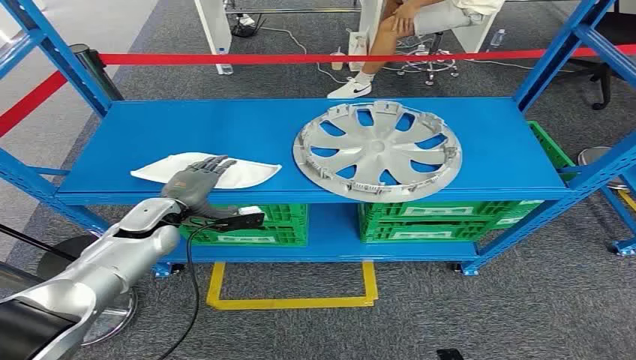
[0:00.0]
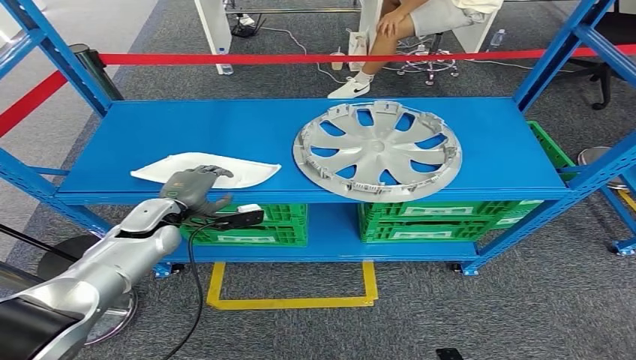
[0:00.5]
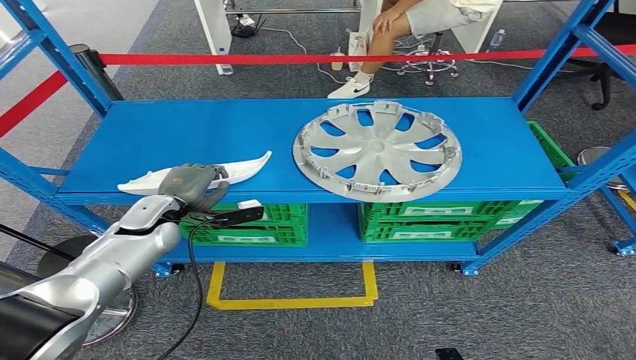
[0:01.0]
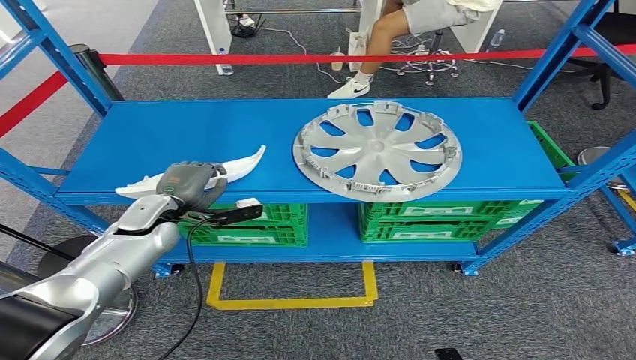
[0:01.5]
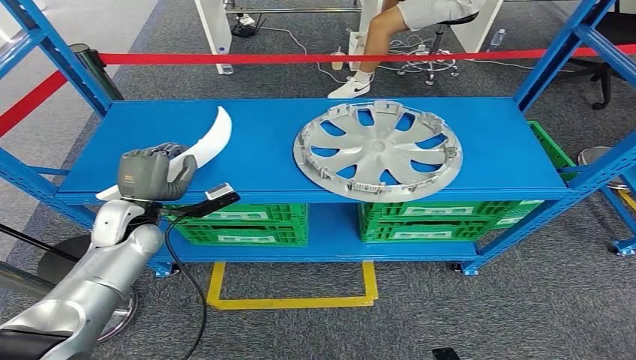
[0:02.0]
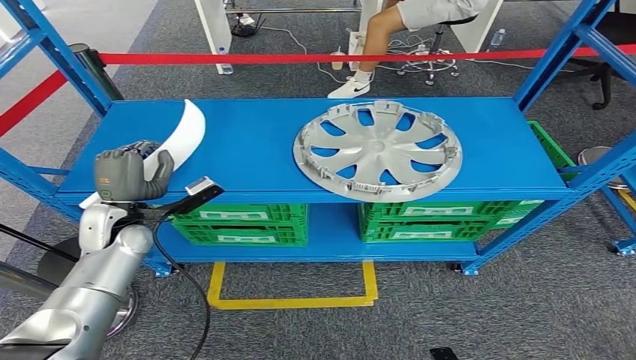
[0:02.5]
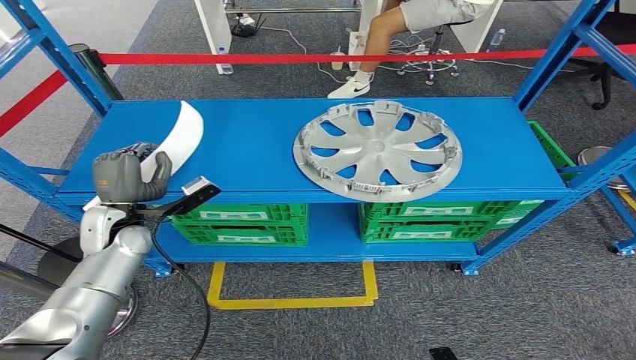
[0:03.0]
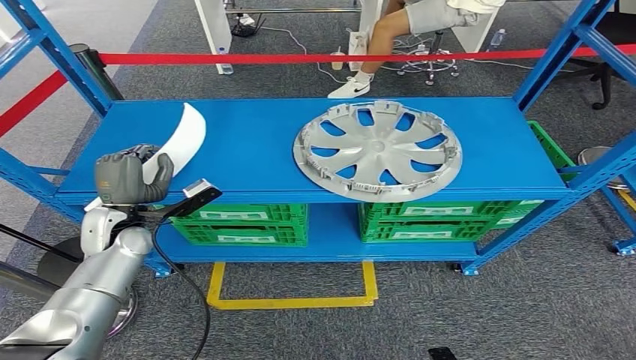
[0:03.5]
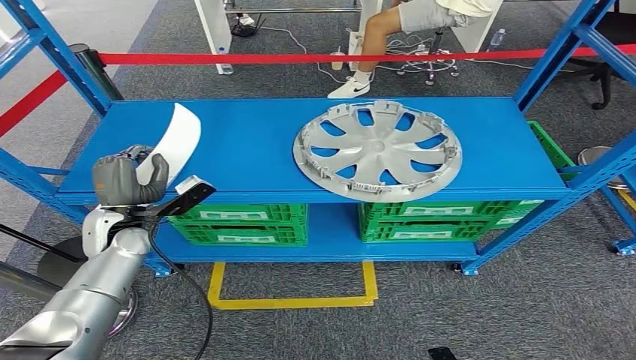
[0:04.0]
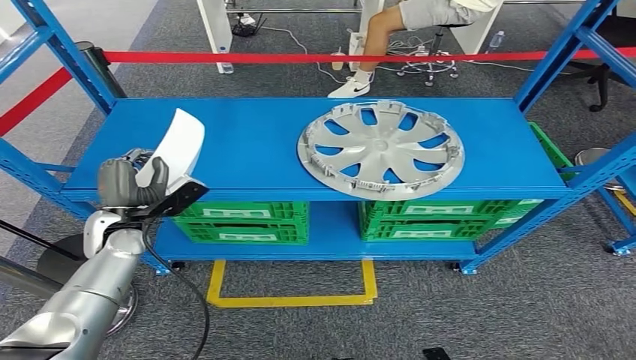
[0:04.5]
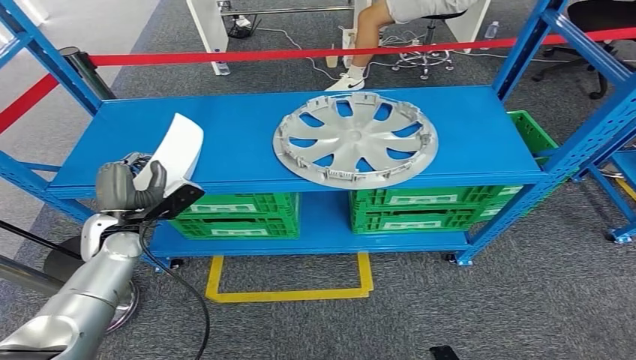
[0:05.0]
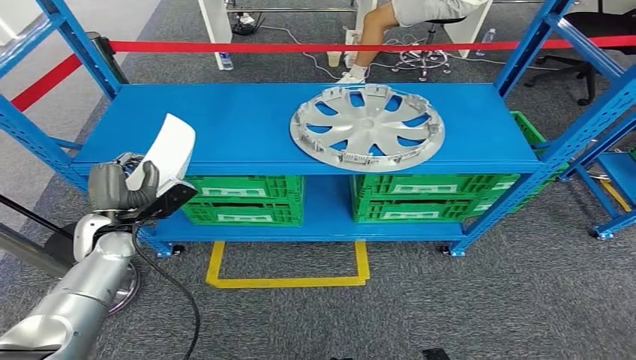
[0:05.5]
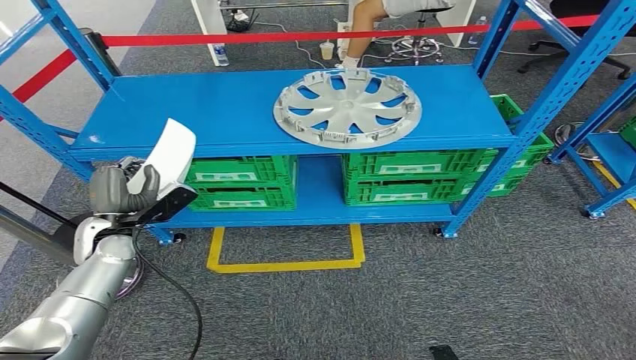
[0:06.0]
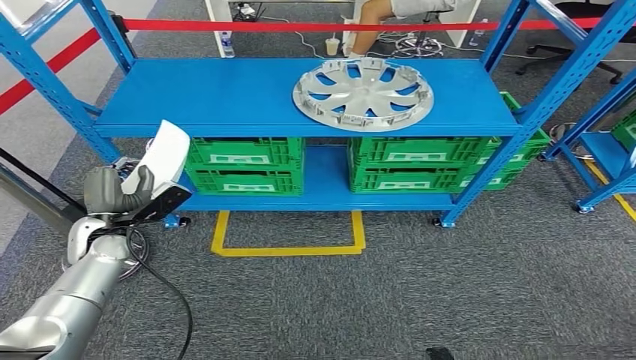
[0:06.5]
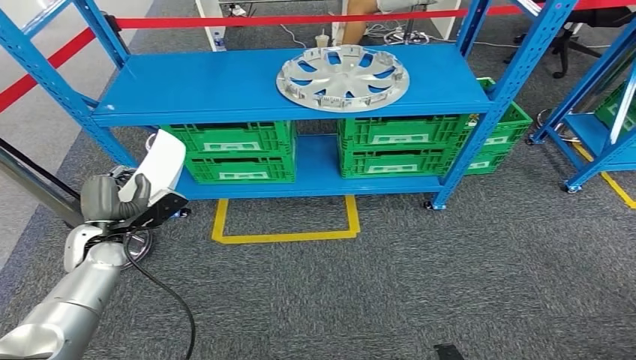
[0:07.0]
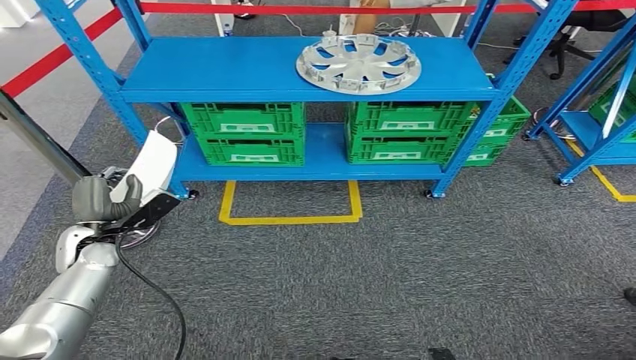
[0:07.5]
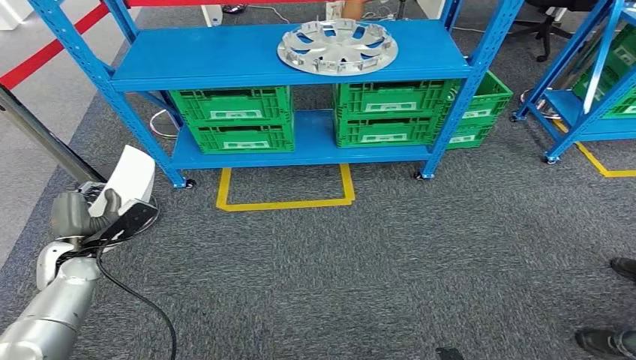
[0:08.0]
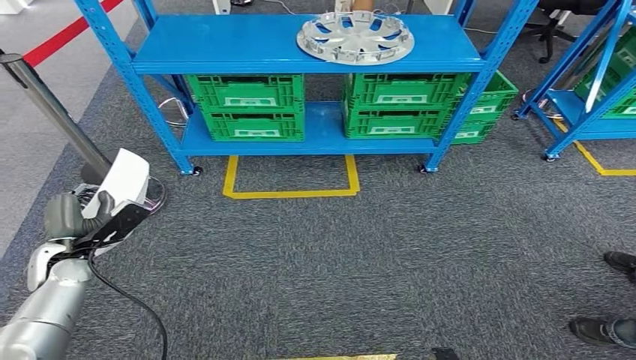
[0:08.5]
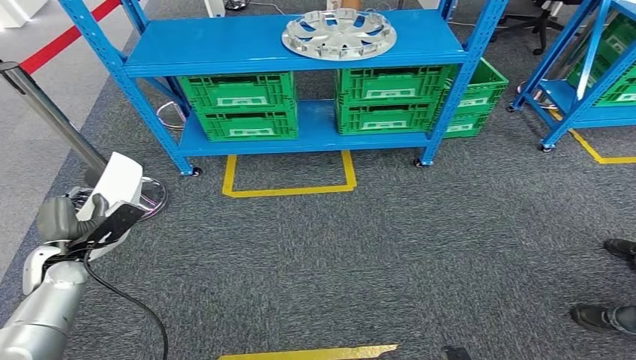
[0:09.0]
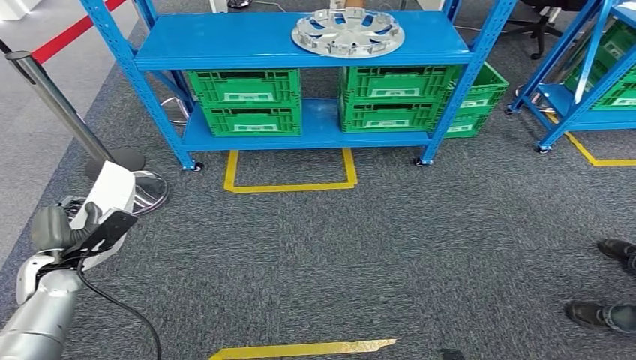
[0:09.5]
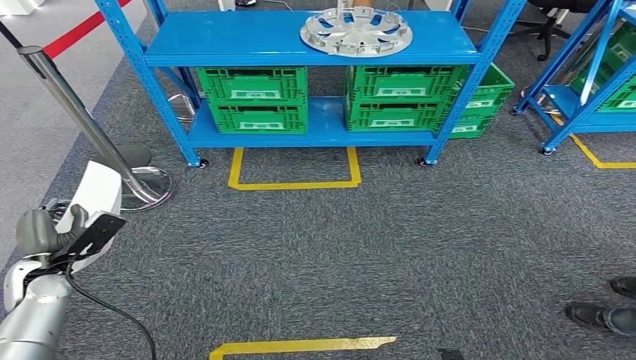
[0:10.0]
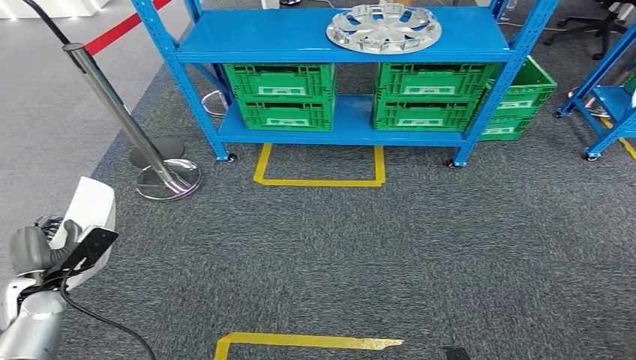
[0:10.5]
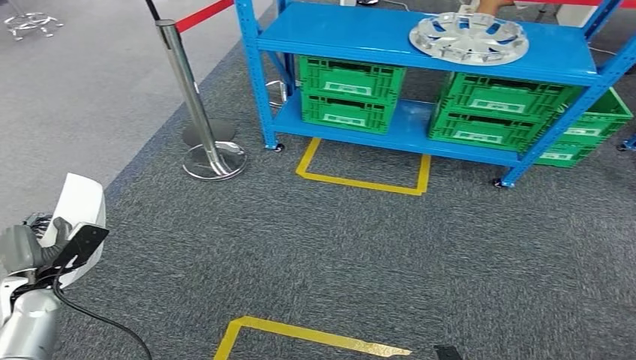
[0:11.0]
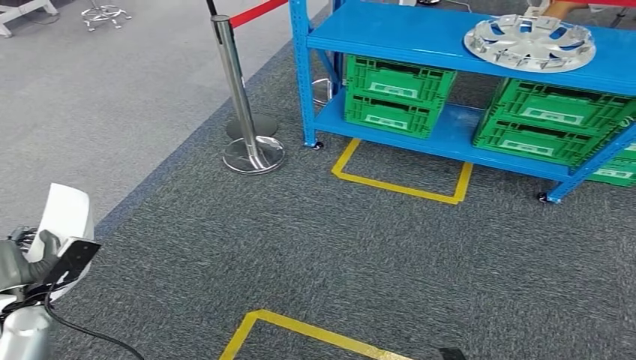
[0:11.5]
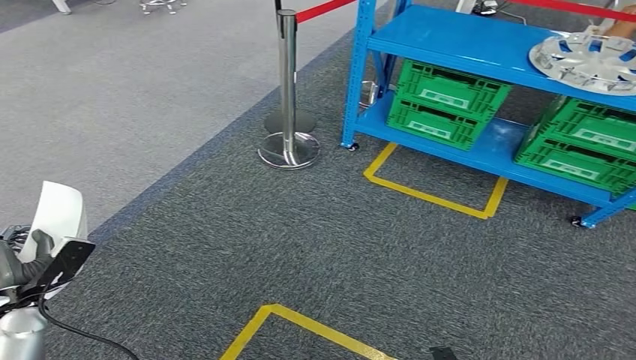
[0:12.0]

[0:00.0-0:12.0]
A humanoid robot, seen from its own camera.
Step, 0:00.0 to 0:07.0: Pick up the small parts from the shelf.
0:02.0 to 0:04.0: The hands make only small movements.

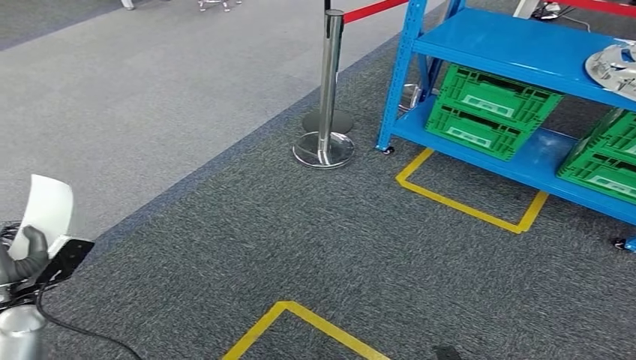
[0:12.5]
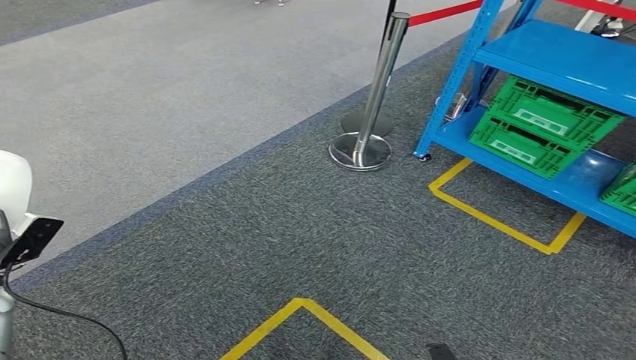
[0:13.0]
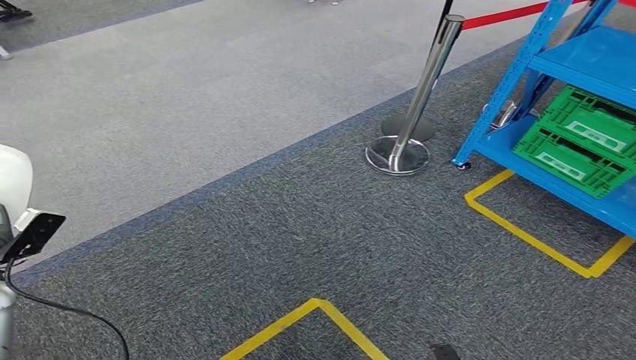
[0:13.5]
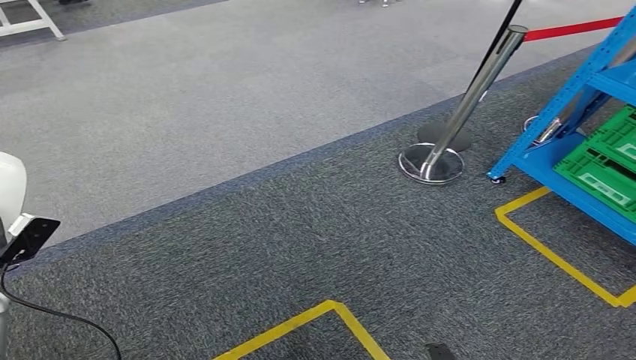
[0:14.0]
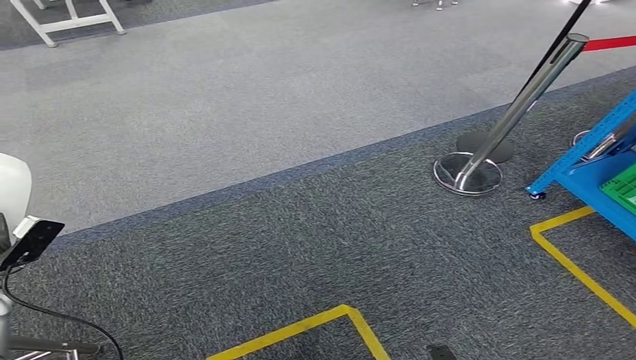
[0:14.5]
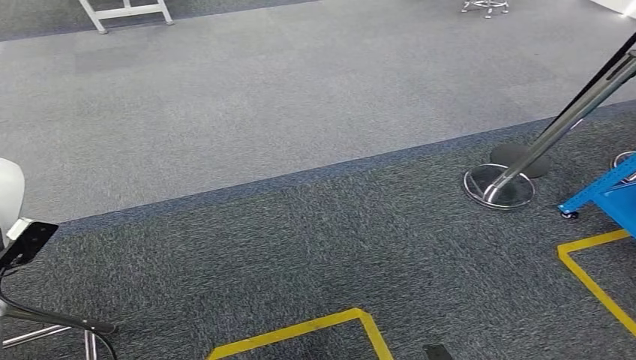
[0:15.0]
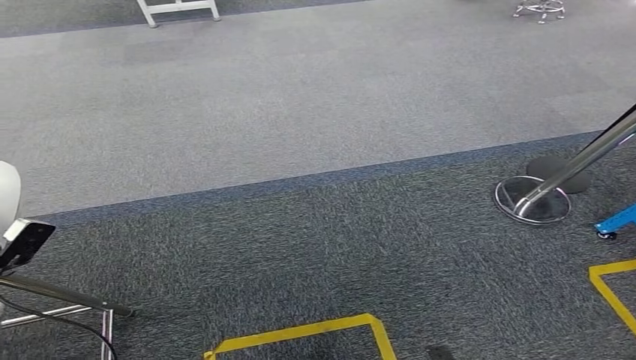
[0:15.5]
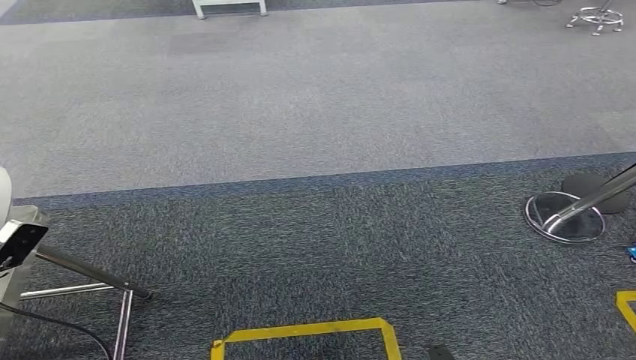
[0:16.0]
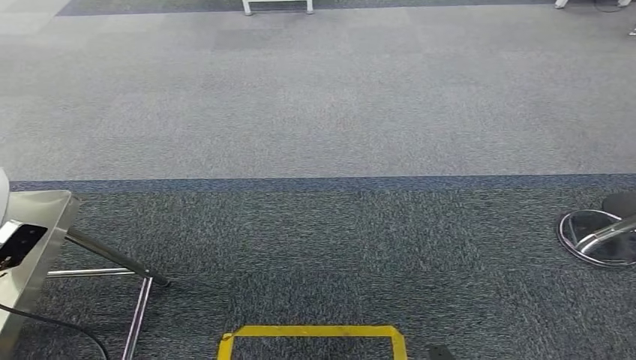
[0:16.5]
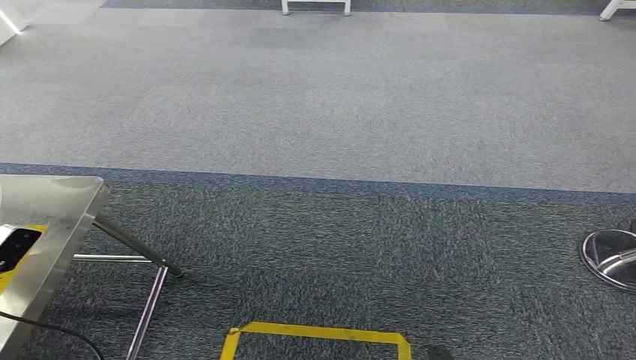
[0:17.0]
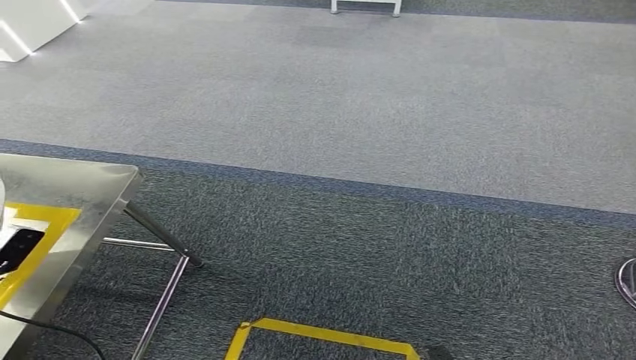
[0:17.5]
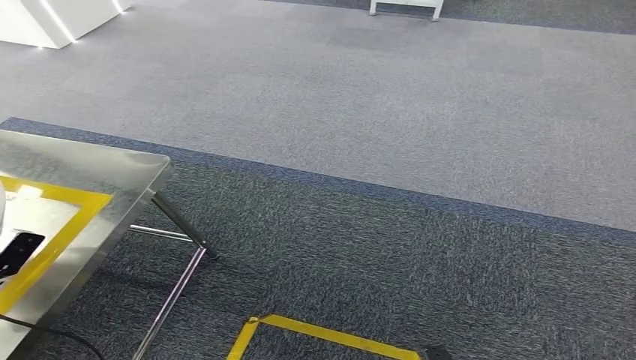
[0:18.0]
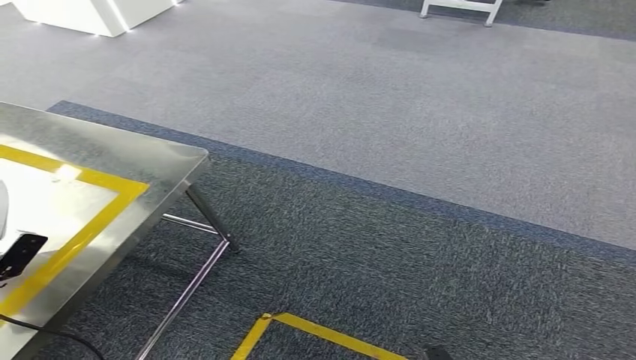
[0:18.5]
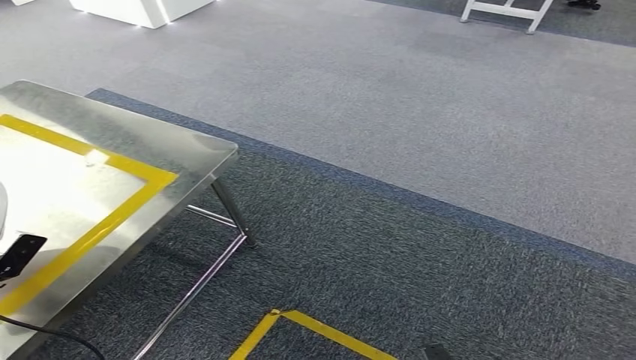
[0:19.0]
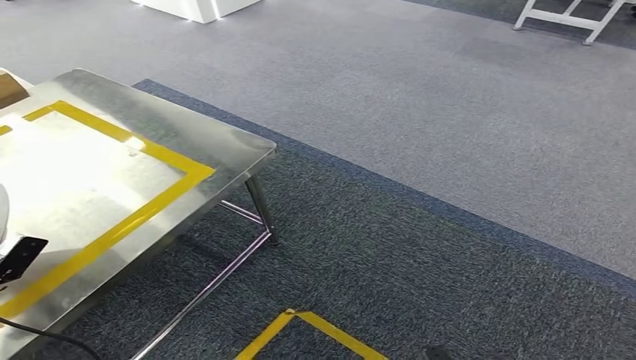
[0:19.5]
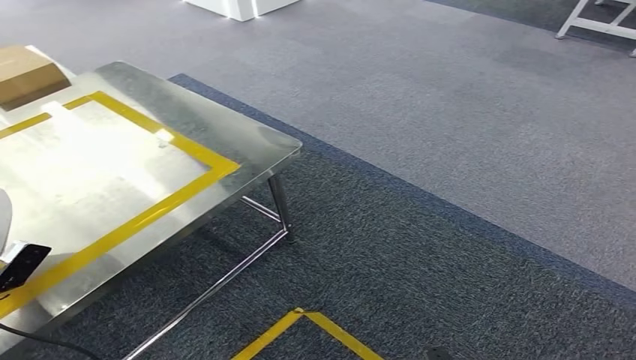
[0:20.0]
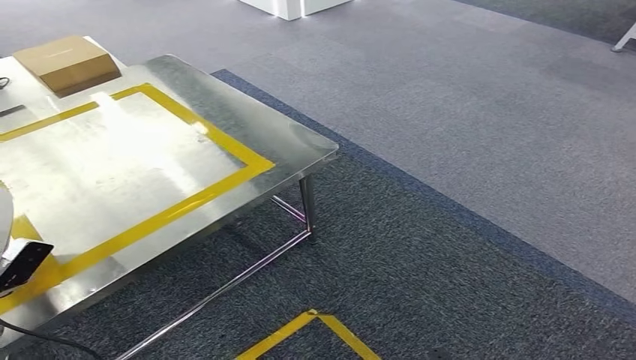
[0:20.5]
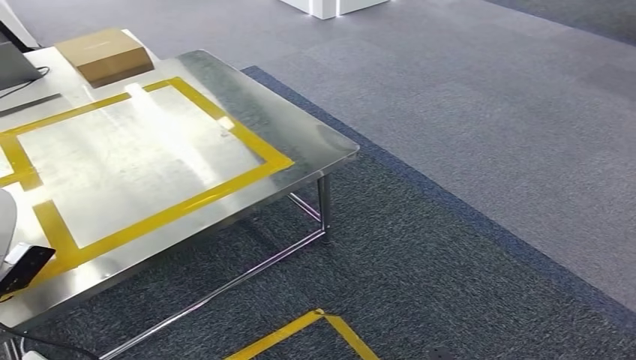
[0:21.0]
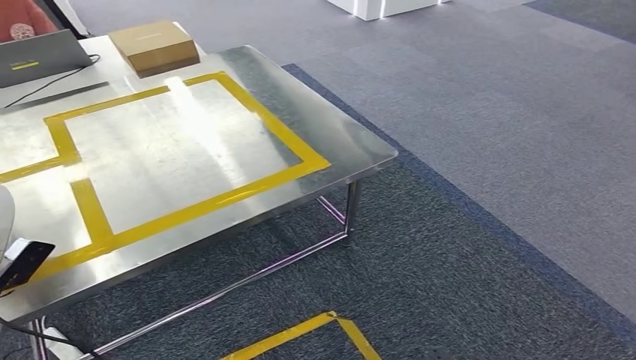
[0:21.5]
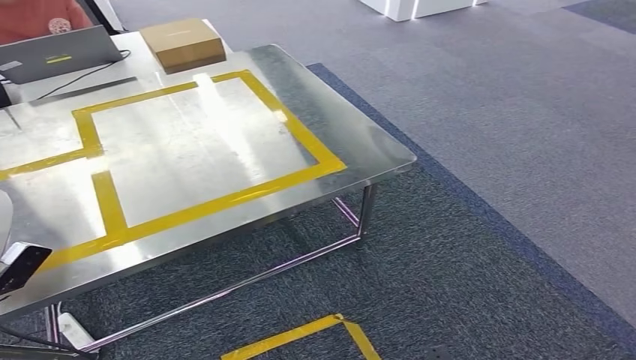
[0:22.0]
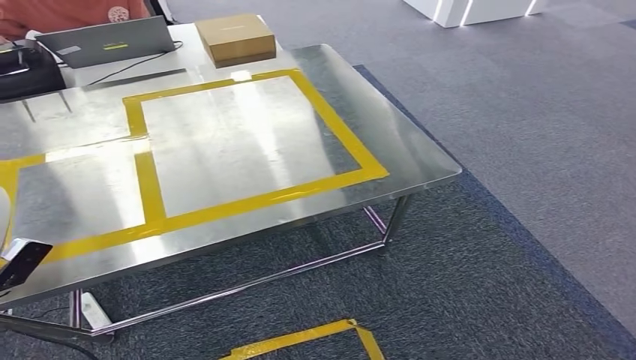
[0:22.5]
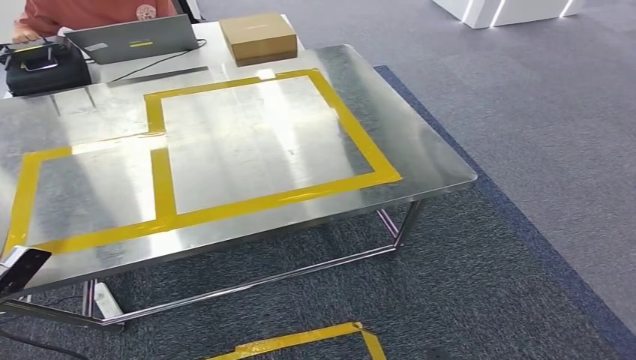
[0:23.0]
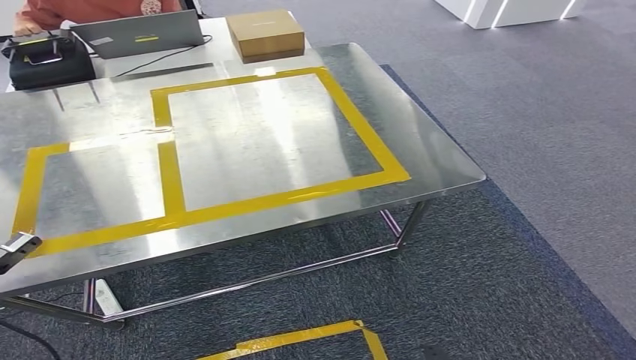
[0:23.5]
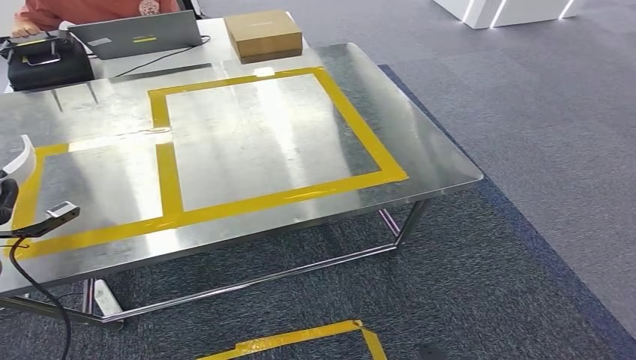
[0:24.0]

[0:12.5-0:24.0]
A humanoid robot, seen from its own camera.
Step, 0:12.5 to 0:23.5: Move the small parts to the workbench.
